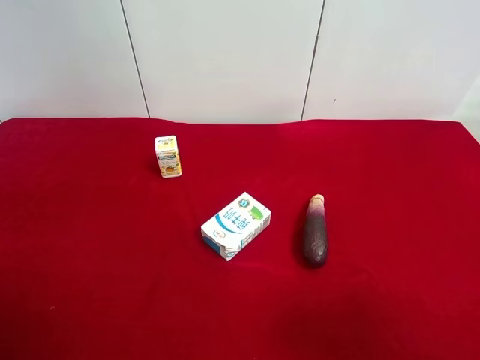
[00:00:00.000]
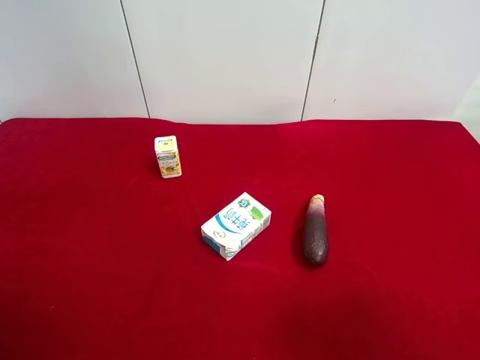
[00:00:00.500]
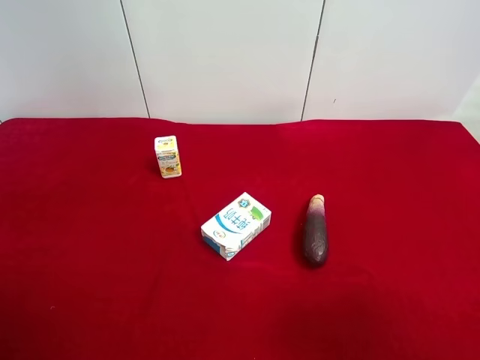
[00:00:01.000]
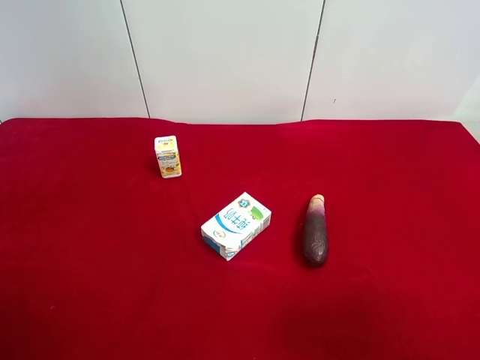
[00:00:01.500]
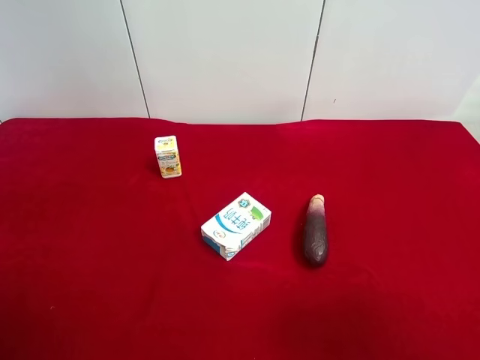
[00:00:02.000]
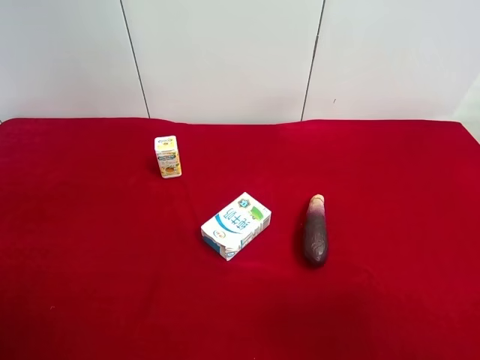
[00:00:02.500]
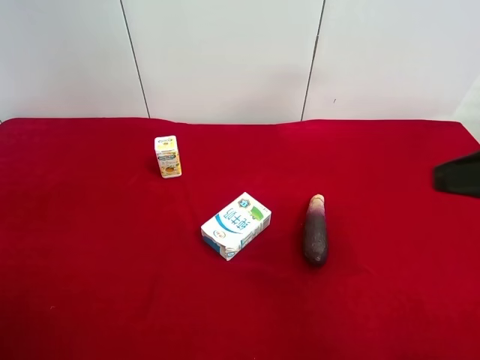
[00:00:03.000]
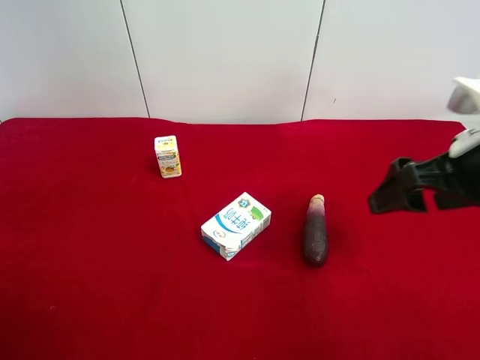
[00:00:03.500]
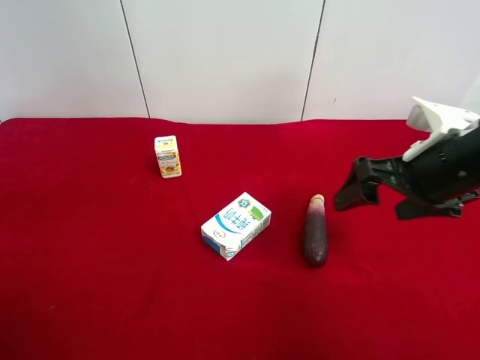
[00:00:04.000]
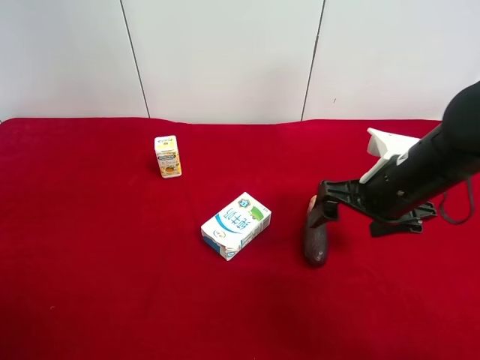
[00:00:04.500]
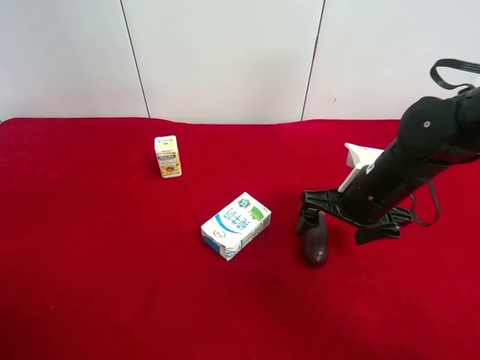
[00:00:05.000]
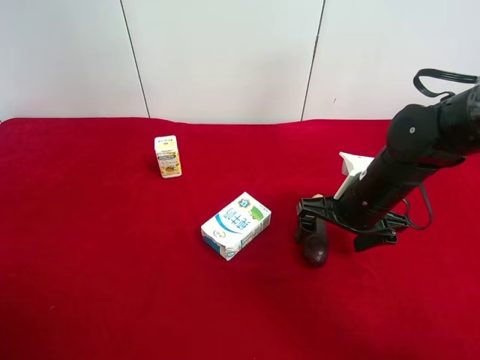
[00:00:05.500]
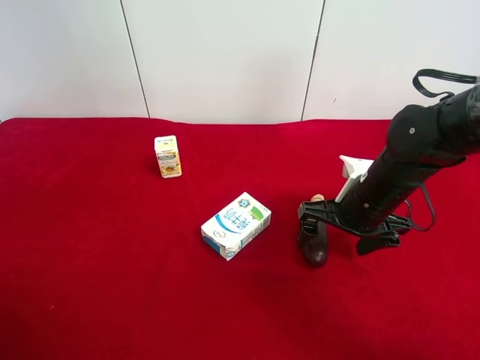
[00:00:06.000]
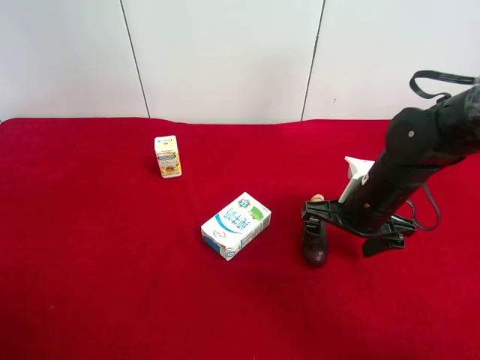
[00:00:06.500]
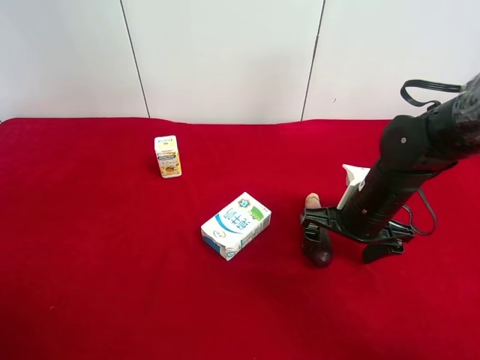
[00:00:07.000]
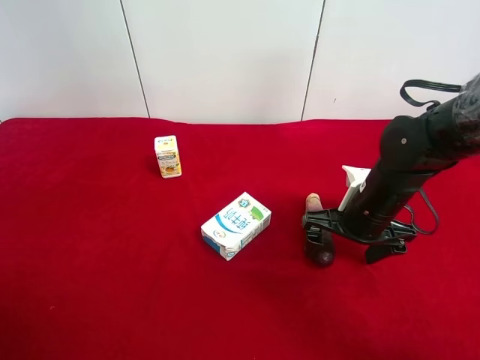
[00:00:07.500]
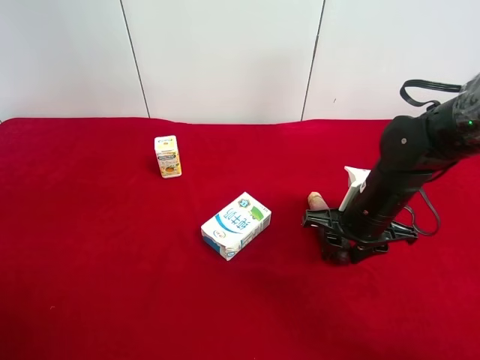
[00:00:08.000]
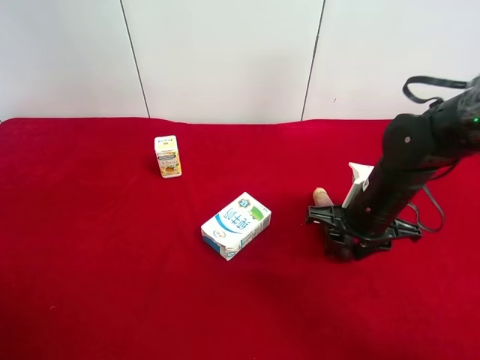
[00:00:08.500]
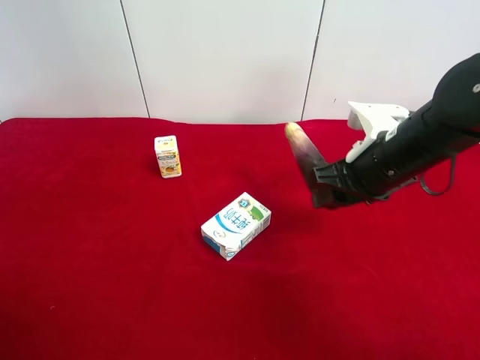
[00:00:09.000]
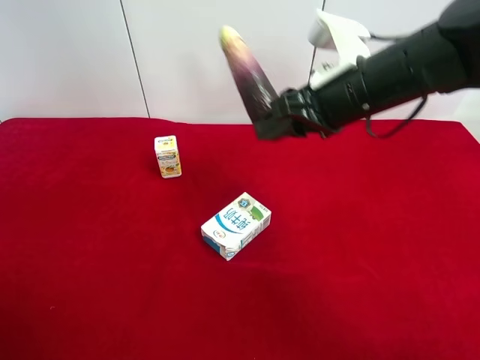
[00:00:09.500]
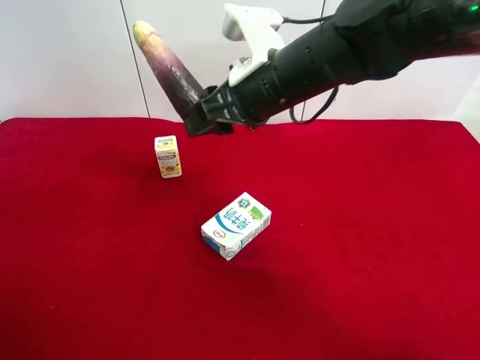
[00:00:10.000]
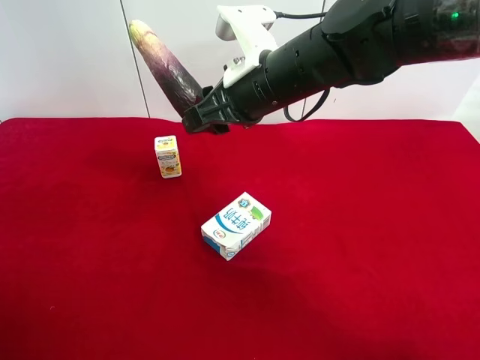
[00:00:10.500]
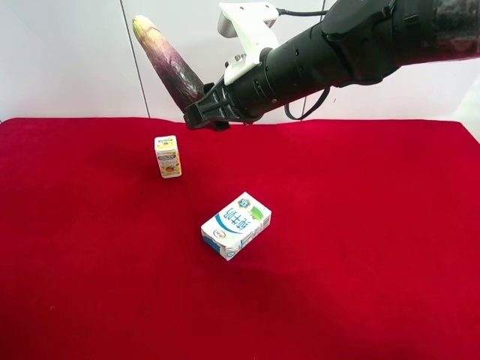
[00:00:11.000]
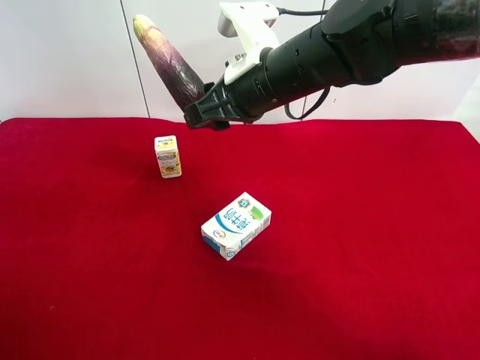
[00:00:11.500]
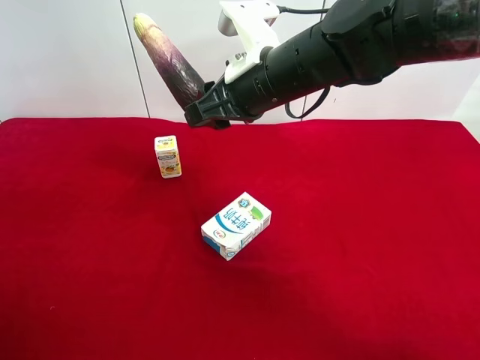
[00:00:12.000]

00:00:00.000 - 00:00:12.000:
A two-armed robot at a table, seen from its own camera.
Task of the whole recording: use the right gripper to pick up the item and transfer it from the right gripper to the left gripper.
Step, 00:00:00.000 - 00:00:08.000: Use the right gripper to grab the eggplant on the right side of the table.
00:00:00.000 - 00:00:02.000: Both grippers stay put.
00:00:02.000 - 00:00:04.000: The right gripper shifts some 20 cm forward.
00:00:04.000 - 00:00:06.000: The right gripper is displaced downward by approximately 10 cm.
00:00:06.000 - 00:00:08.000: The right gripper closes its fingers.
00:00:08.000 - 00:00:10.000: The right gripper goes some 20 cm upward and to the left.
00:00:10.000 - 00:00:12.000: The left gripper heads forward, covering roughly 5 cm.

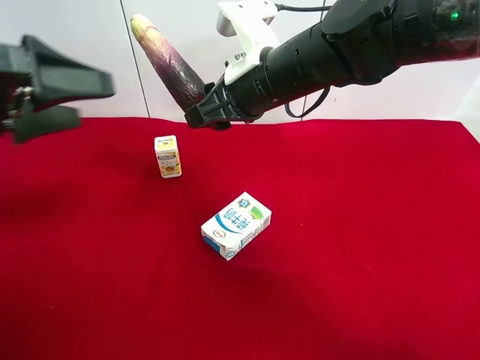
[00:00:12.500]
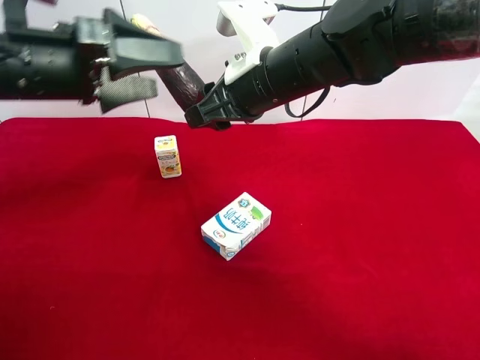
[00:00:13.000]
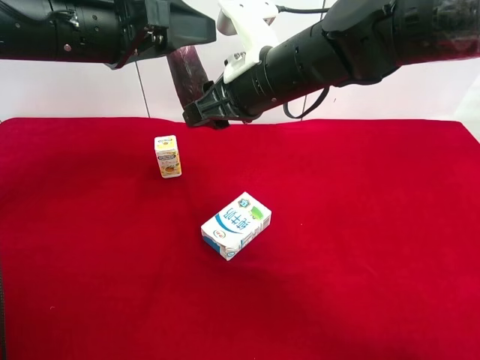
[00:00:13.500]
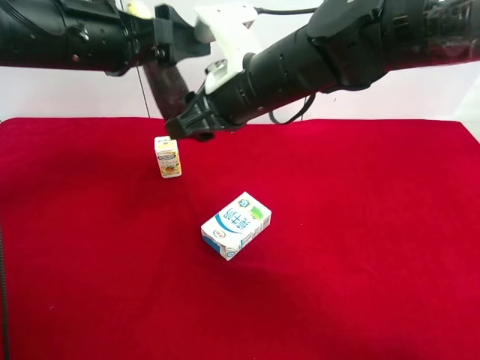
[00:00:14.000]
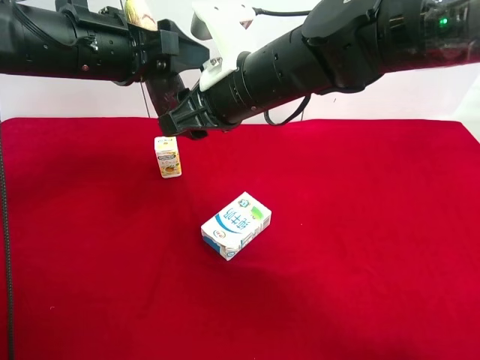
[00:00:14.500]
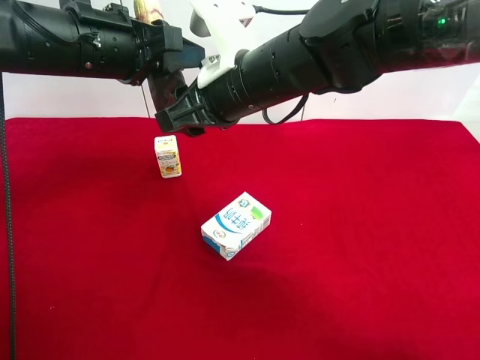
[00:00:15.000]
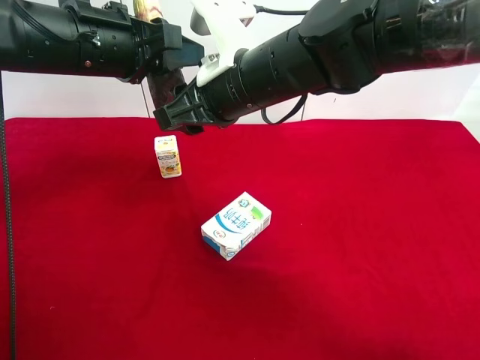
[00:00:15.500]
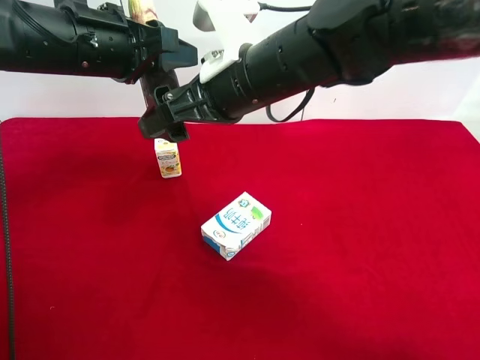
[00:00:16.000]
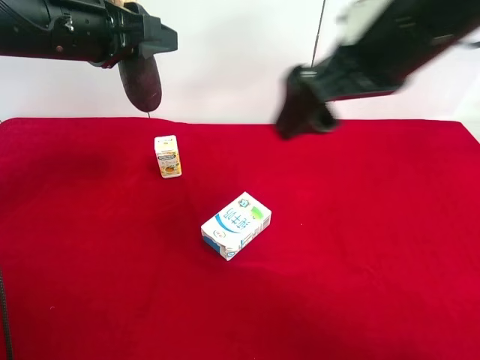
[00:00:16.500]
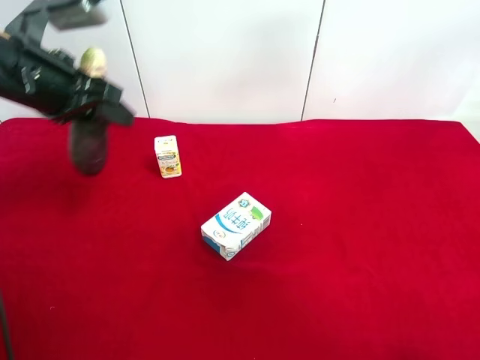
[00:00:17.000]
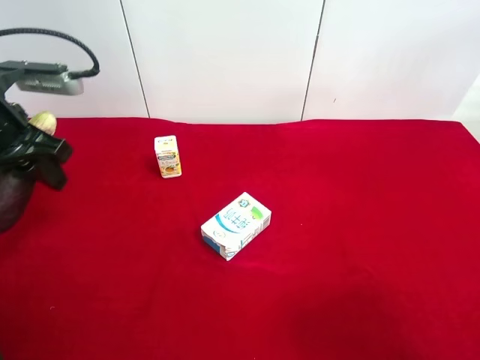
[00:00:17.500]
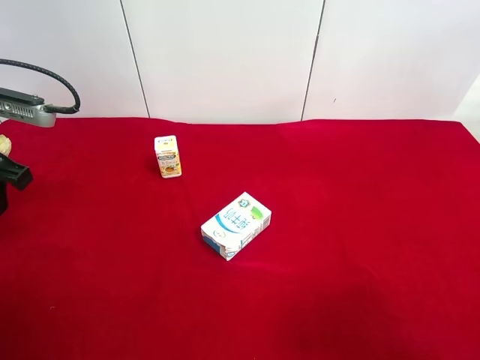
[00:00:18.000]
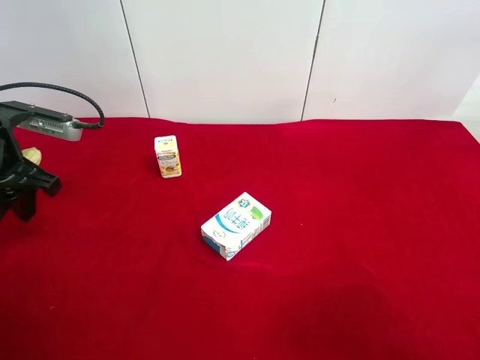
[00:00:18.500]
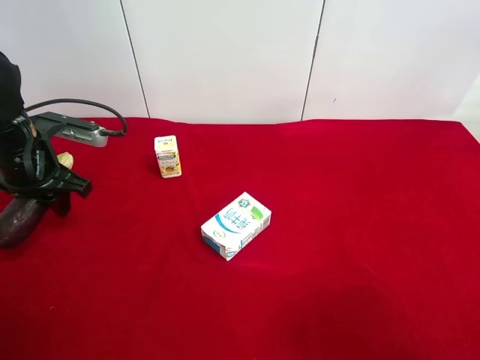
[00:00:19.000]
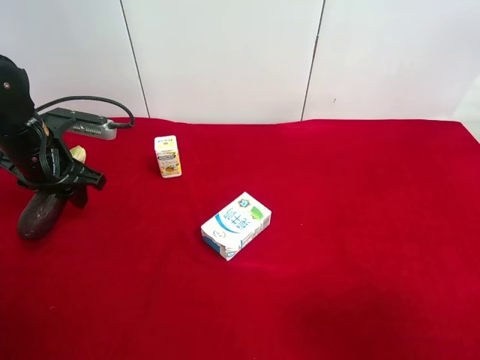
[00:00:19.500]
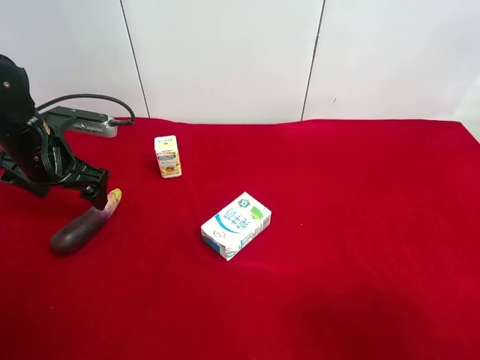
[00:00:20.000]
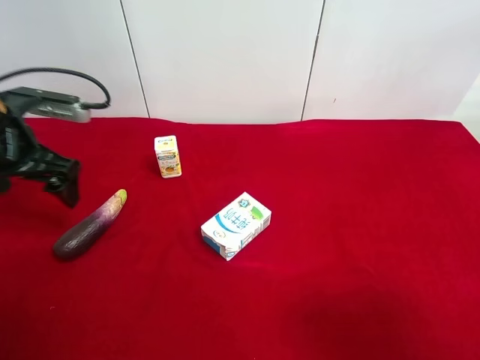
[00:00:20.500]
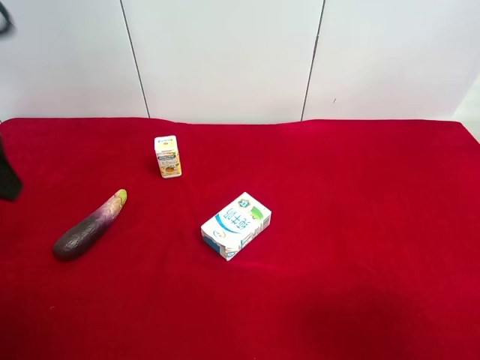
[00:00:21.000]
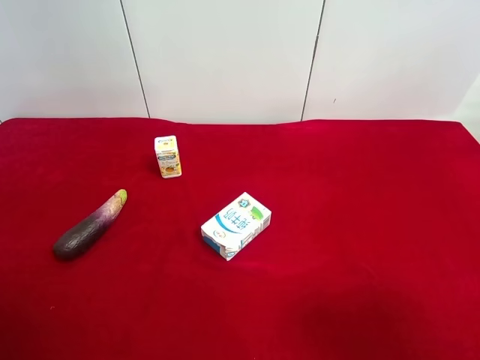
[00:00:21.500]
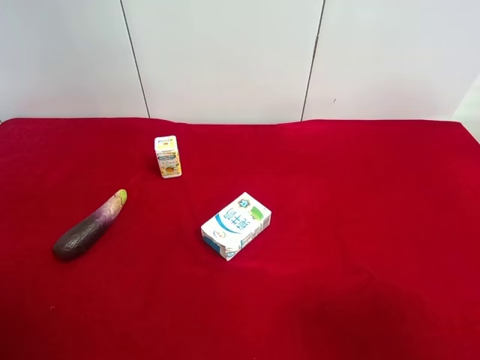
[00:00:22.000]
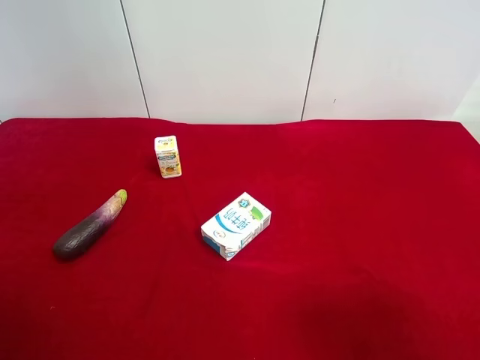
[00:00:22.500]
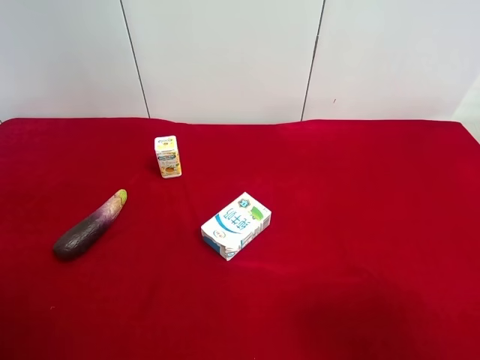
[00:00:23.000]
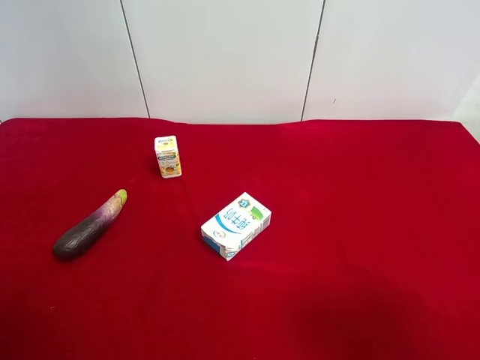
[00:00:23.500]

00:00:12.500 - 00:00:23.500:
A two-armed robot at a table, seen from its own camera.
Task of the whole recording: use the right gripper to pick up the item and transfer it from the right gripper to the left gripper.
Step, 00:00:12.500 - 00:00:16.000: Pass the eggplant to the left gripper.
Step, 00:00:16.500 - 00:00:19.500: The left gripper places eggplant on the left side of the table.
00:00:12.500 - 00:00:14.500: The left gripper travels to the right and forward by roughly 10 cm, and closes its fingers.
00:00:14.500 - 00:00:16.000: The left gripper closes up. Meanwhile the right gripper opens up.
00:00:16.000 - 00:00:18.000: The left gripper goes approximately 15 cm to the left and backward, while the right gripper moves backward and to the right, some 40 cm.
00:00:18.000 - 00:00:20.000: The left gripper shifts roughly 10 cm downward and forward, and opens its fingers.
00:00:20.000 - 00:00:21.500: The left gripper travels backward and upward by some 30 cm.
